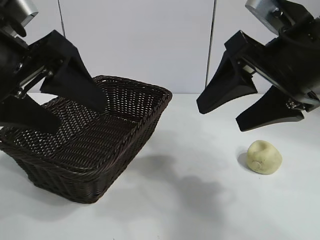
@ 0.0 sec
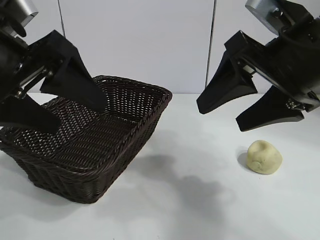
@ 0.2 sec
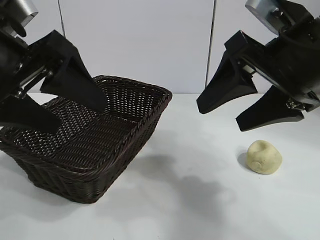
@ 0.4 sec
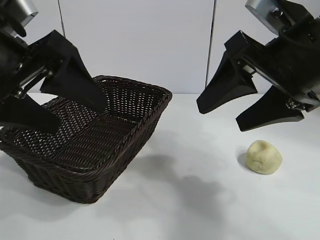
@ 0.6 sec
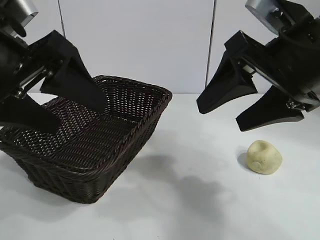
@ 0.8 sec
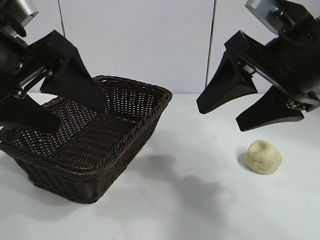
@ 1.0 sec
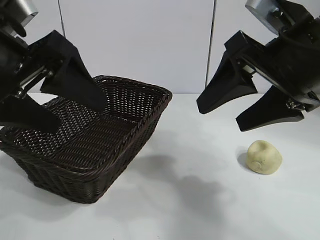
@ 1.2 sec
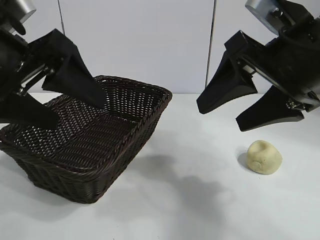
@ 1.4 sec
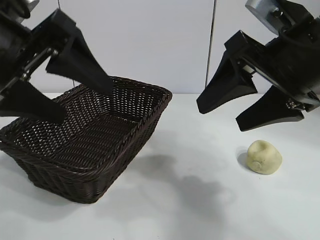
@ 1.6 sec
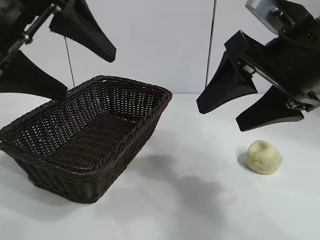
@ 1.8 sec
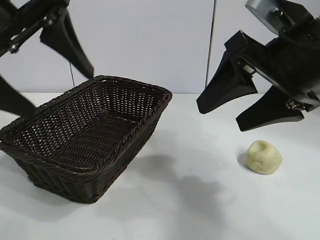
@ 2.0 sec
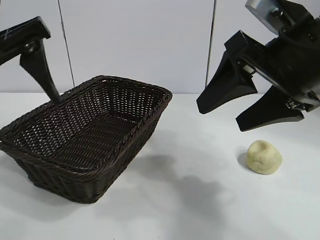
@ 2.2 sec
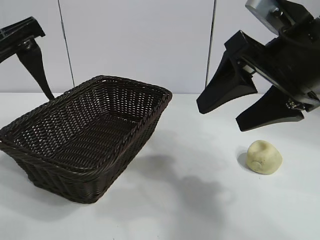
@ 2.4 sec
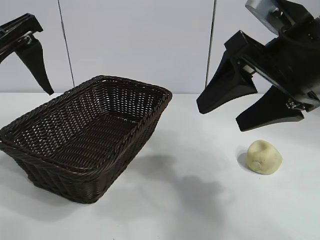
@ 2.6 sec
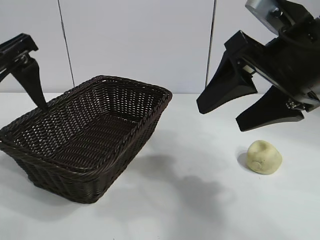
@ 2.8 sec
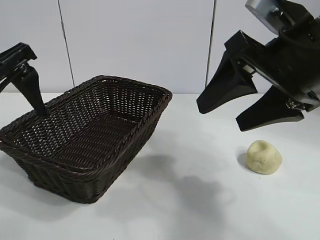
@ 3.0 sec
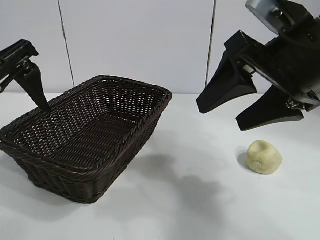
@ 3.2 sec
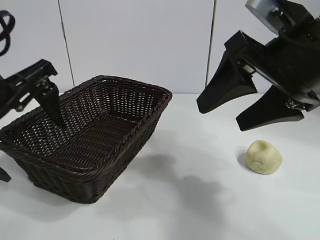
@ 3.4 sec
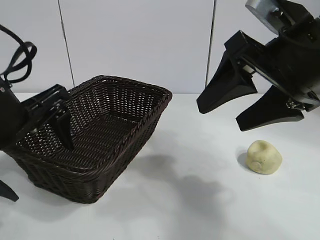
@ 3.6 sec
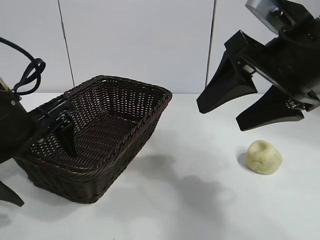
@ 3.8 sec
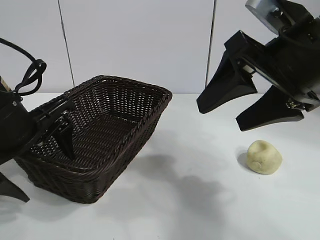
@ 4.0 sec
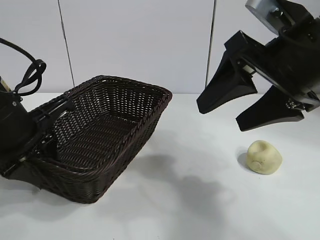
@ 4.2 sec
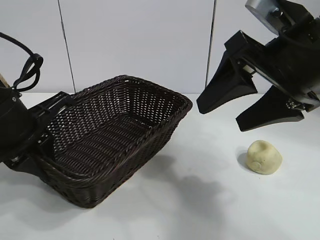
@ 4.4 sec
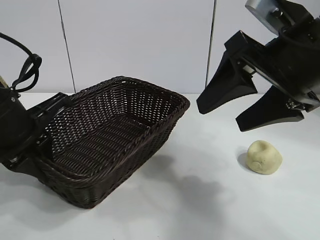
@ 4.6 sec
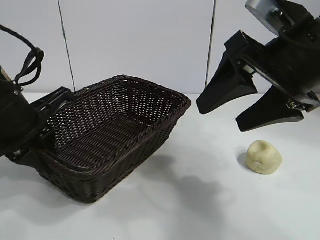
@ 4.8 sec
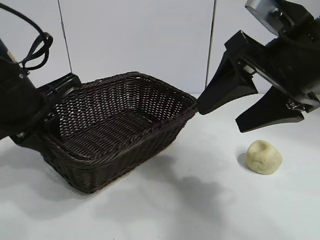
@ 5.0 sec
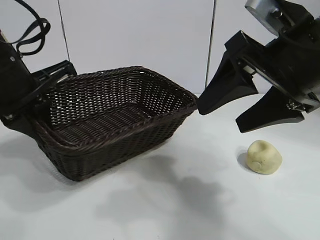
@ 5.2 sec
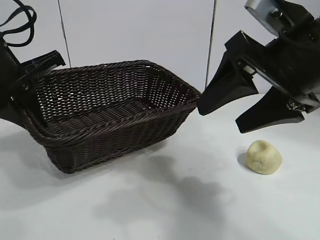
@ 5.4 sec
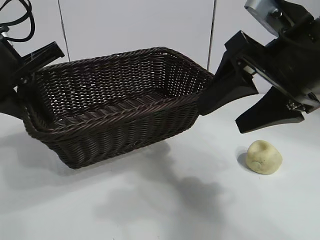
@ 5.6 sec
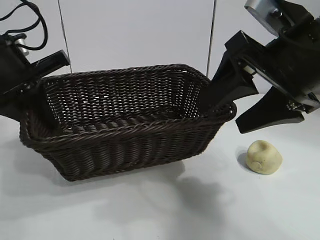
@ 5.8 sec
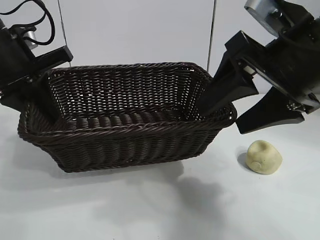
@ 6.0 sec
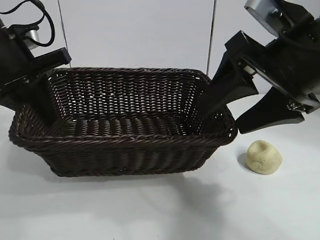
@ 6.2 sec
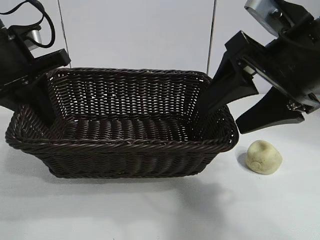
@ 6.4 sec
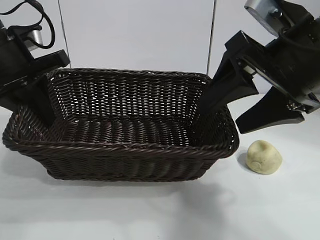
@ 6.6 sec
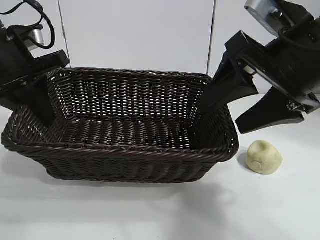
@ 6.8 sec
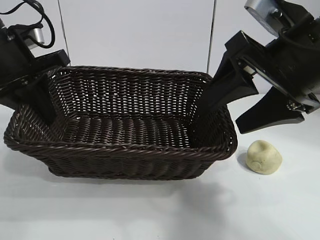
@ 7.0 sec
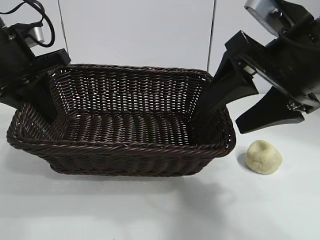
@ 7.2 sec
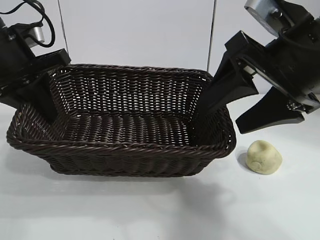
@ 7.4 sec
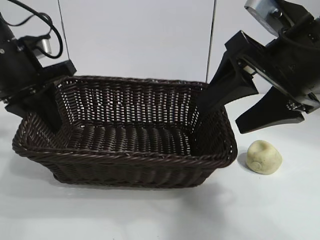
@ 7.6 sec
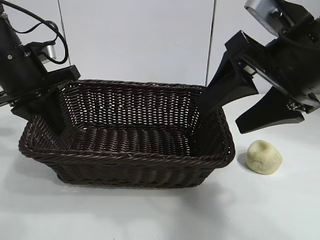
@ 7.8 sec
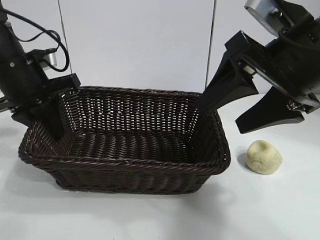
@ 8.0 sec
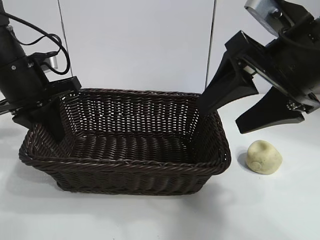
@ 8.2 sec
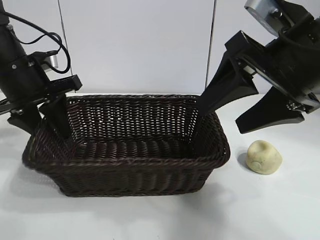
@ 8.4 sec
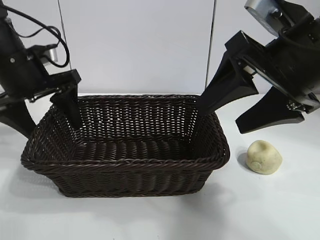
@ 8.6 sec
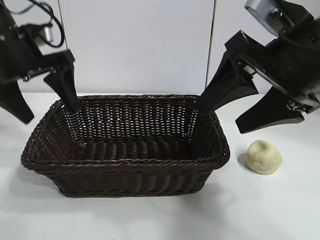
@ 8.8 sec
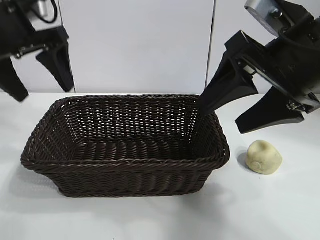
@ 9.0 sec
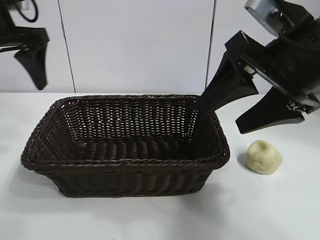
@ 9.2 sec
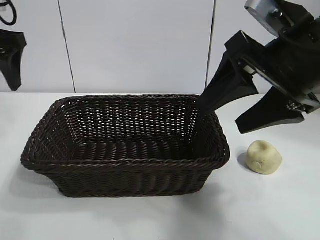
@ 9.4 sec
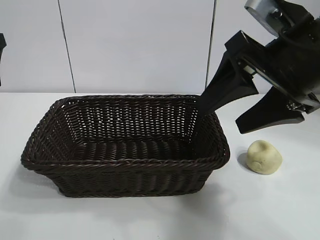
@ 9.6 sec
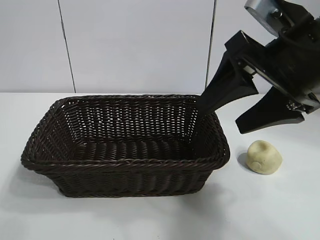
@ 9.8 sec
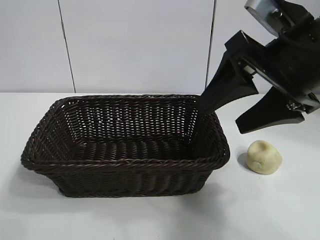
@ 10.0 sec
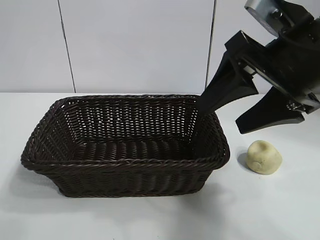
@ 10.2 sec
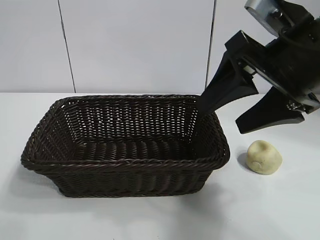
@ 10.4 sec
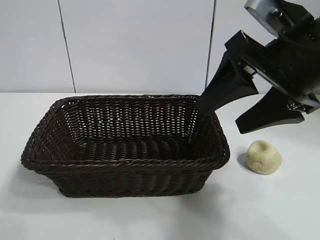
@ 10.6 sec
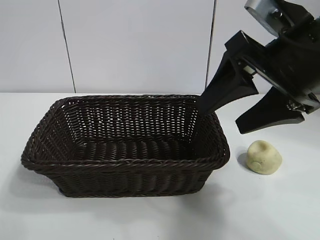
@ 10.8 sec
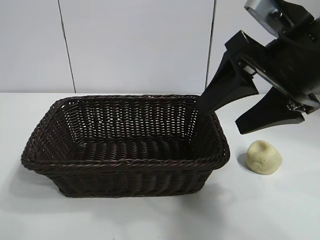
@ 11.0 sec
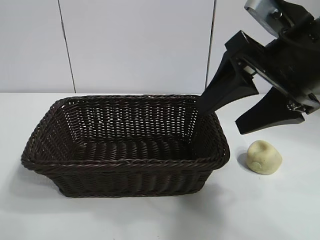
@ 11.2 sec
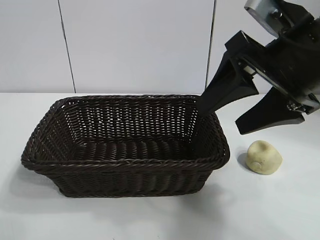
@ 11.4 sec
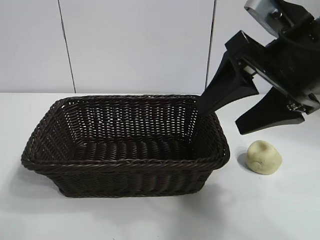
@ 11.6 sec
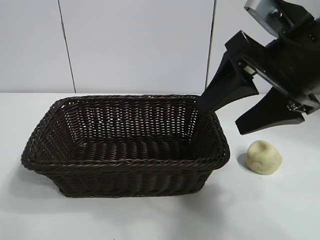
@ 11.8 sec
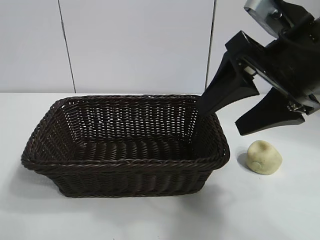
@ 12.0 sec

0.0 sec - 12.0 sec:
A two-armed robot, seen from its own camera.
Task of the whole recording: pick up the egg yolk pastry and put it into the basket.
Step, 1.4 sec - 4.2 sec: Grasp the basket with left gripper.
Step, 4.6 sec - 8.6 sec: Place the basket in the center of view with left gripper.

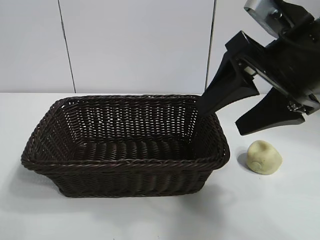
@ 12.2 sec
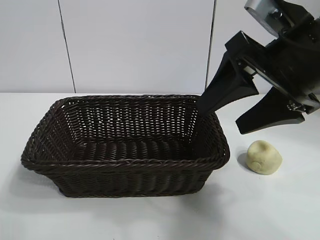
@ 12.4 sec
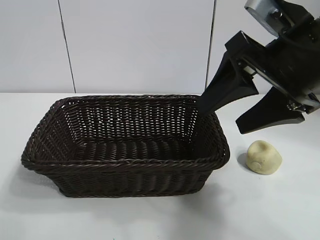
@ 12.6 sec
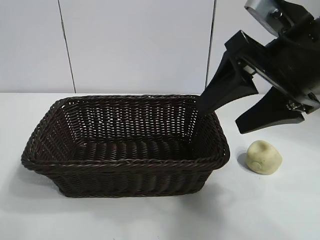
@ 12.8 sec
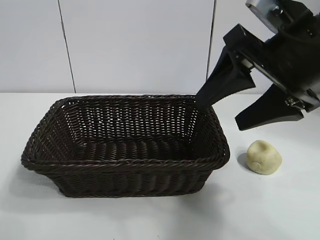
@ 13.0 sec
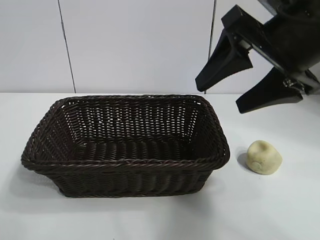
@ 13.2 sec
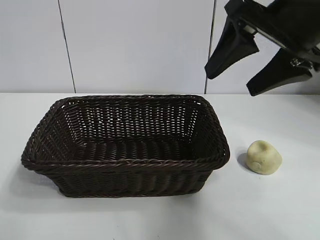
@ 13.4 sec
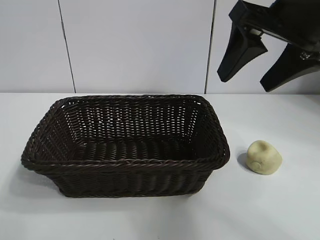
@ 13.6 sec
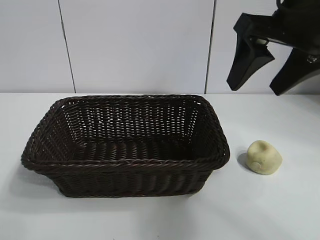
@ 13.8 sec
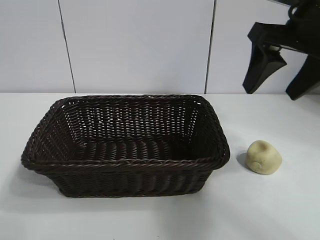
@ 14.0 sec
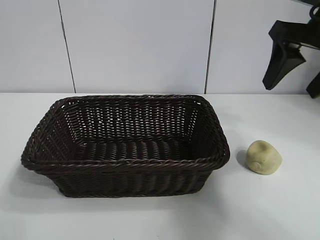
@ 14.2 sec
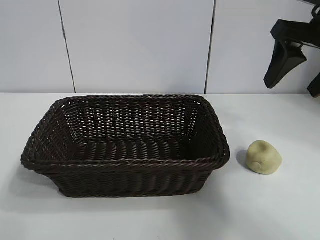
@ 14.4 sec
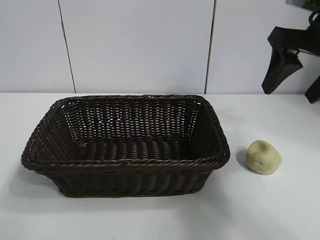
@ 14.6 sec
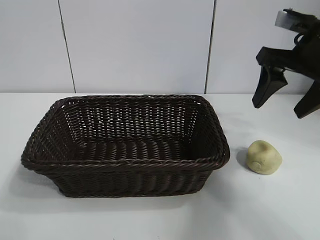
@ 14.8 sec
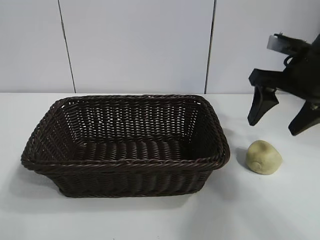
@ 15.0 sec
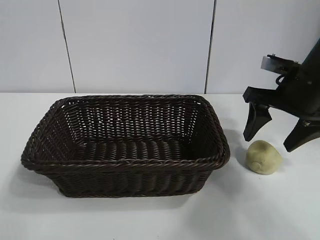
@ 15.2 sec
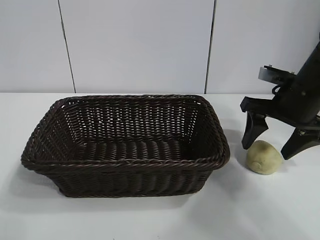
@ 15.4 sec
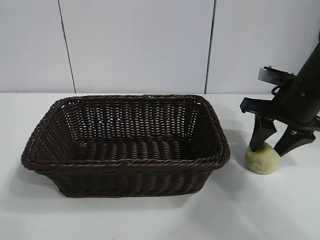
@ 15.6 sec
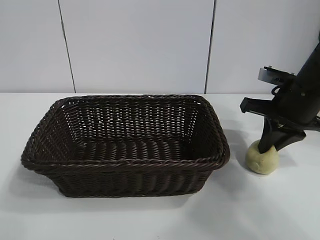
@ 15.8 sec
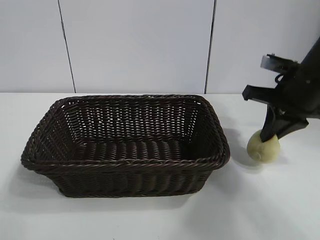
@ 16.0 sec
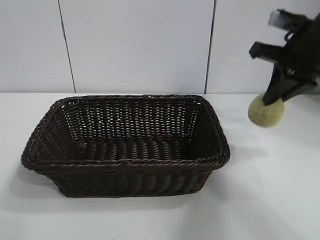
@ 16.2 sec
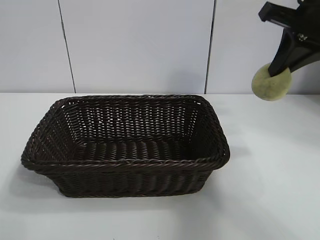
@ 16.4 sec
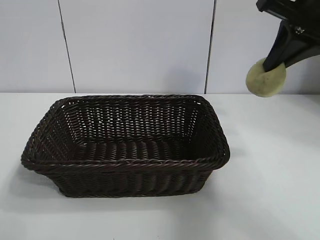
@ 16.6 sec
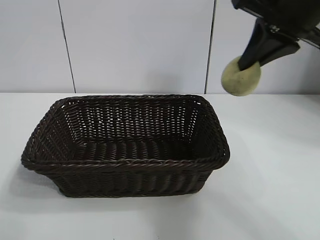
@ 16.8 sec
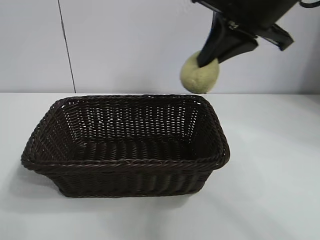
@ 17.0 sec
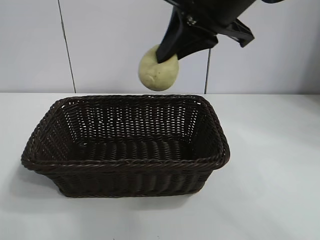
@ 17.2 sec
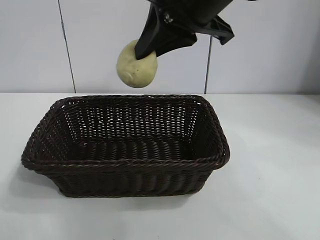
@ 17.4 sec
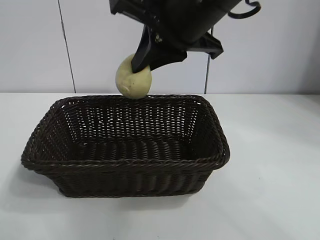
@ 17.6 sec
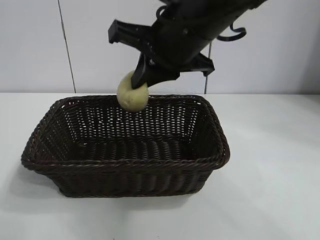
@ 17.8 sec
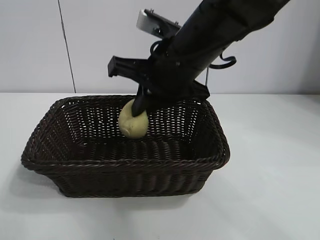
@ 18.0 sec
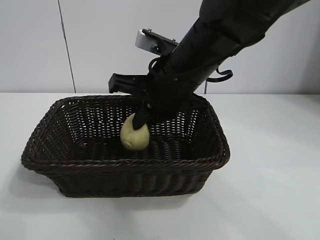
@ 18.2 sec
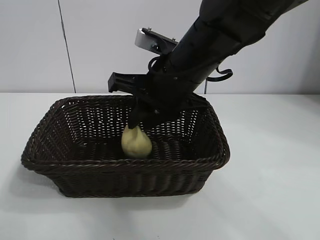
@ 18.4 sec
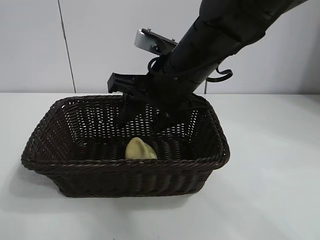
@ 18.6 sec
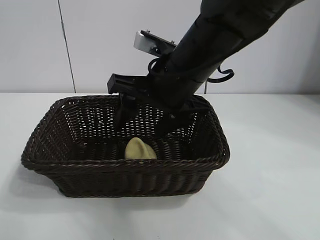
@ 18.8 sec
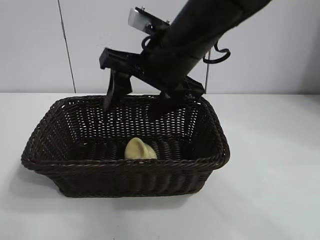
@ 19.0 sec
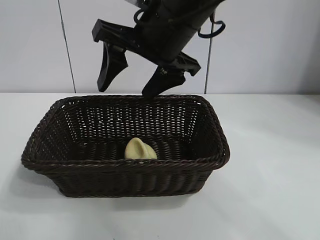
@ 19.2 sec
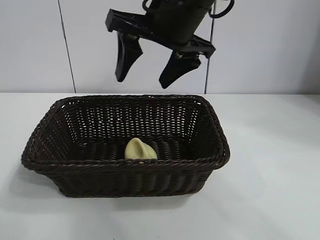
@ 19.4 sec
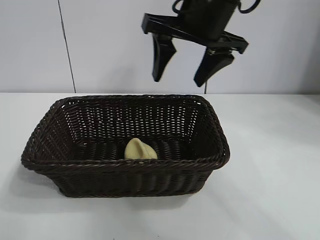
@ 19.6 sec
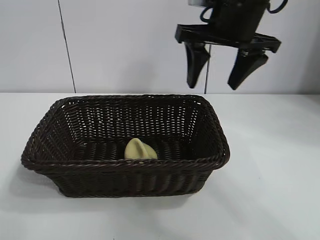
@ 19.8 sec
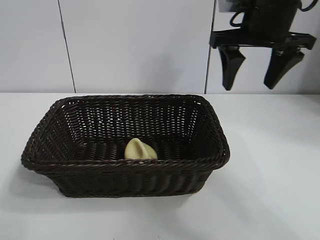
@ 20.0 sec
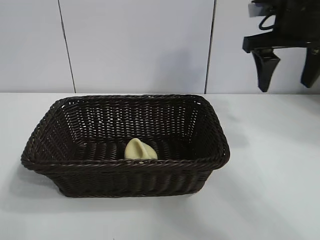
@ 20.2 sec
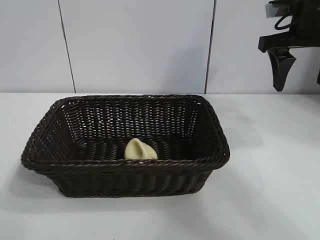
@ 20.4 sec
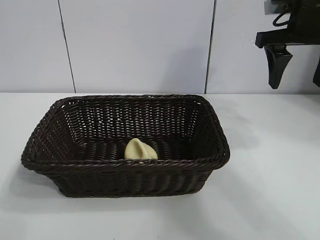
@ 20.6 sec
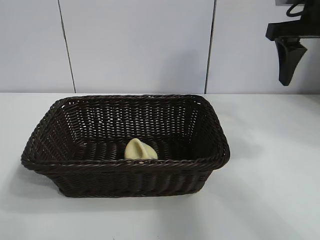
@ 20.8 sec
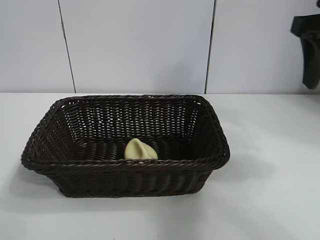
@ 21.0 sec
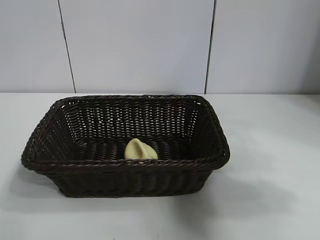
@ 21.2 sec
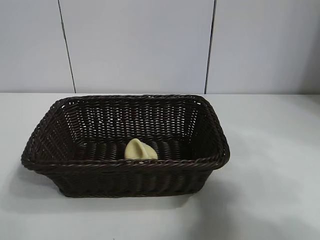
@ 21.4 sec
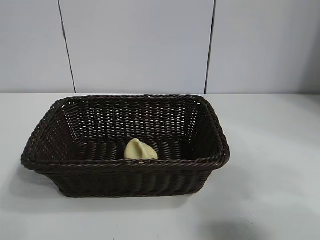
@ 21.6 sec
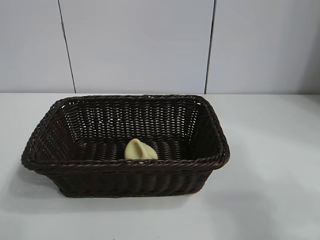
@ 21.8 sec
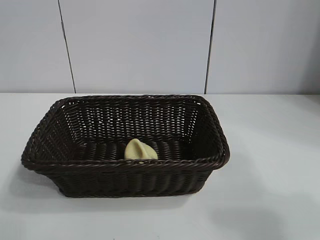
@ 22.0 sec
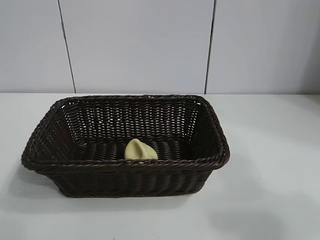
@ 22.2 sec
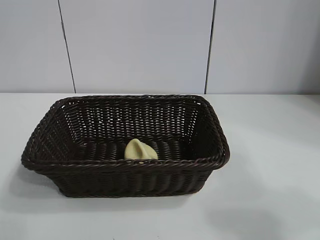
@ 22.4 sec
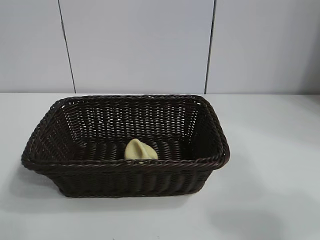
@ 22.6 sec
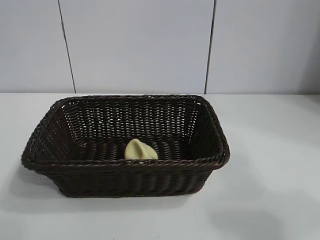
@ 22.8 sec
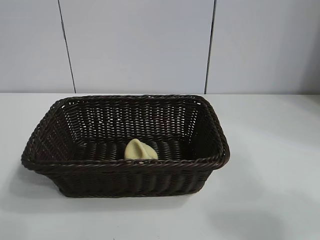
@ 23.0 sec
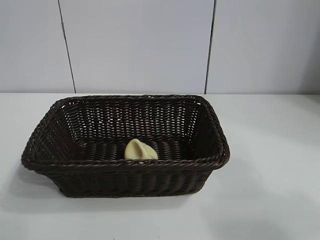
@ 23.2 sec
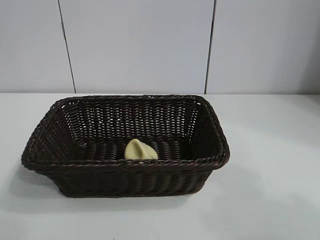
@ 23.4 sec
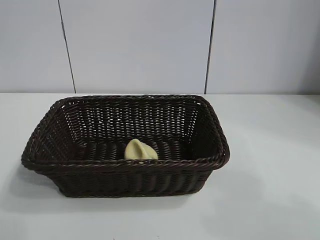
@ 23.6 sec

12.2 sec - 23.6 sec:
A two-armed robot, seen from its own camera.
Task of the whole recording: pick up the egg yolk pastry and put it into the basket.
Step, 12.2 sec - 15.8 sec: Grasp egg yolk pastry with right gripper.
Step, 16.0 sec - 18.8 sec: Place the egg yolk pastry in the basket with right gripper.
